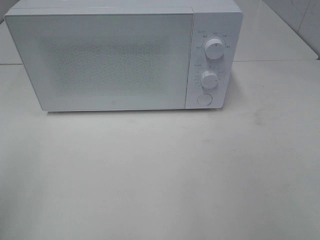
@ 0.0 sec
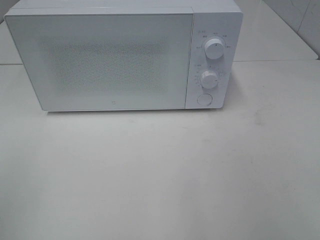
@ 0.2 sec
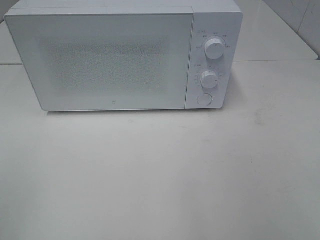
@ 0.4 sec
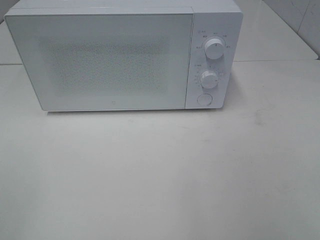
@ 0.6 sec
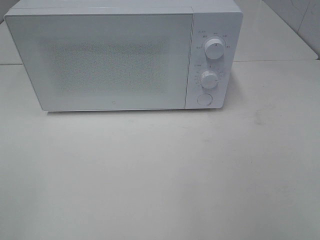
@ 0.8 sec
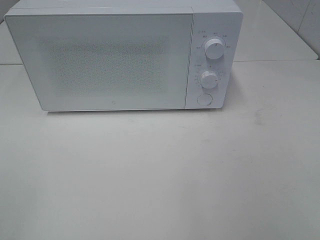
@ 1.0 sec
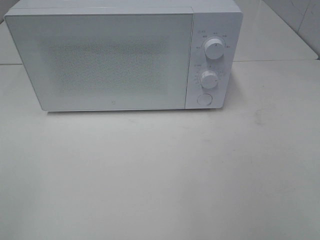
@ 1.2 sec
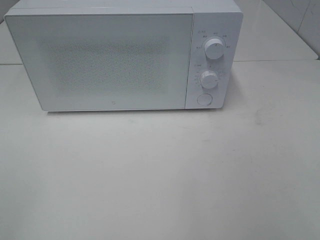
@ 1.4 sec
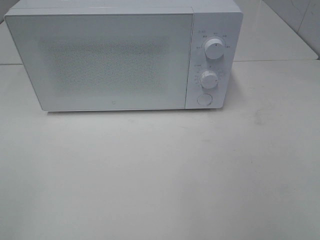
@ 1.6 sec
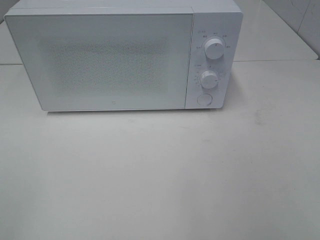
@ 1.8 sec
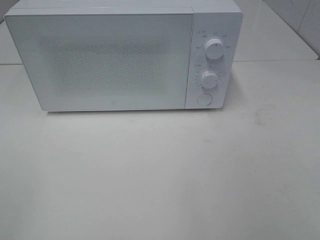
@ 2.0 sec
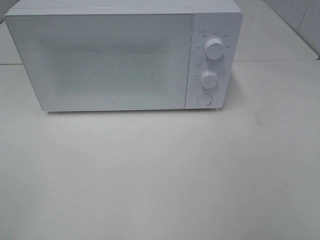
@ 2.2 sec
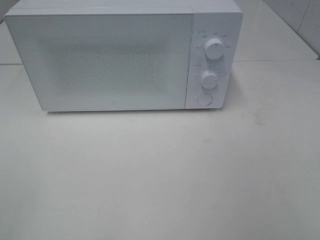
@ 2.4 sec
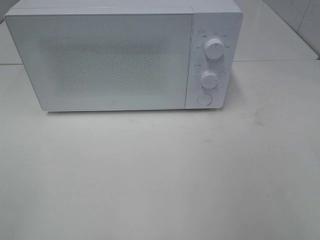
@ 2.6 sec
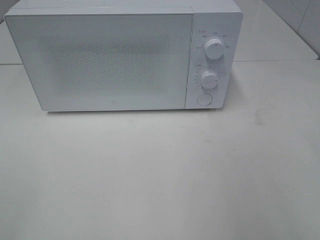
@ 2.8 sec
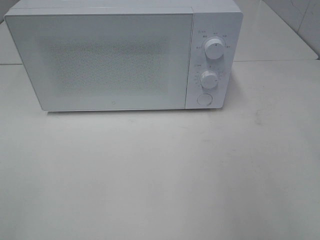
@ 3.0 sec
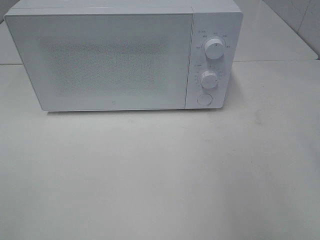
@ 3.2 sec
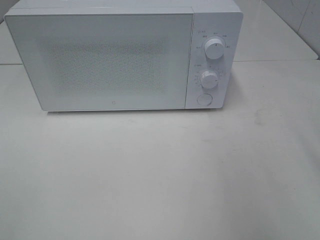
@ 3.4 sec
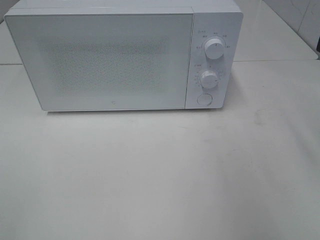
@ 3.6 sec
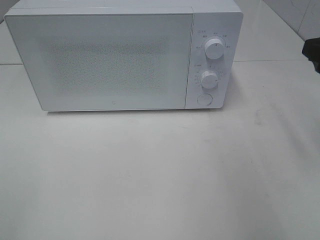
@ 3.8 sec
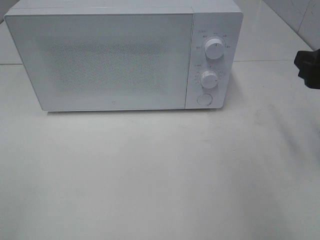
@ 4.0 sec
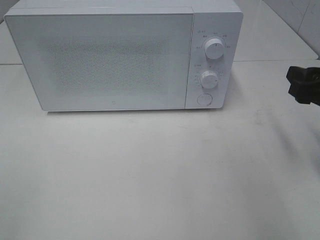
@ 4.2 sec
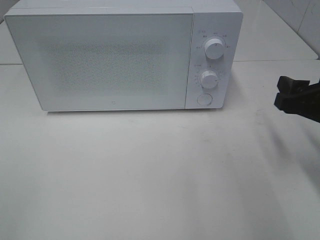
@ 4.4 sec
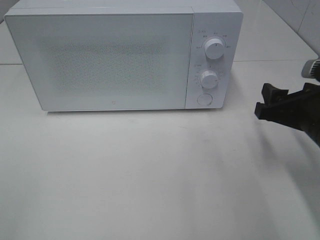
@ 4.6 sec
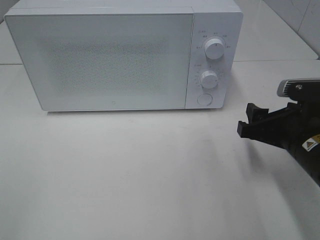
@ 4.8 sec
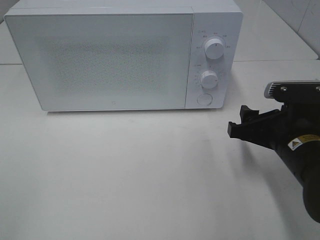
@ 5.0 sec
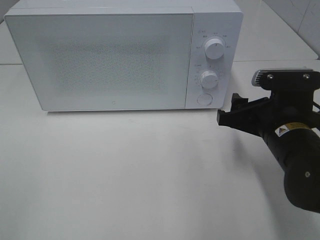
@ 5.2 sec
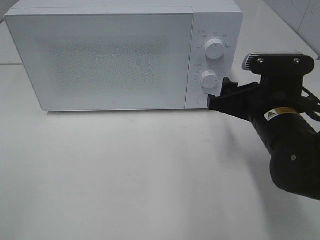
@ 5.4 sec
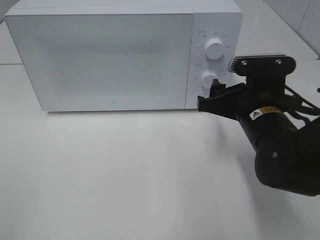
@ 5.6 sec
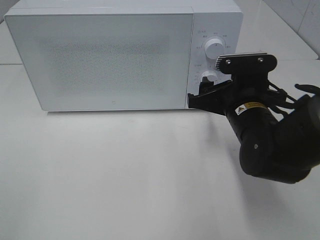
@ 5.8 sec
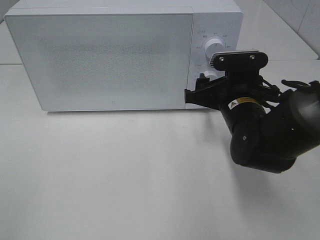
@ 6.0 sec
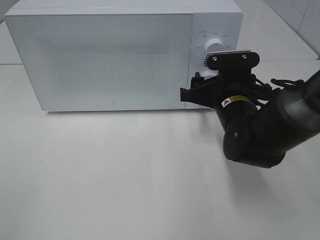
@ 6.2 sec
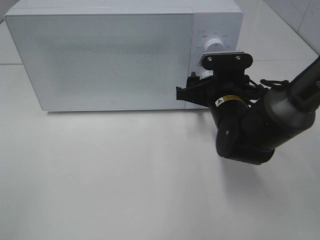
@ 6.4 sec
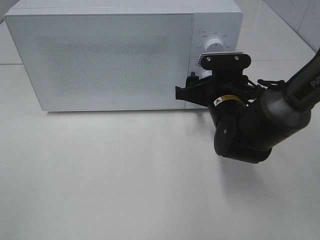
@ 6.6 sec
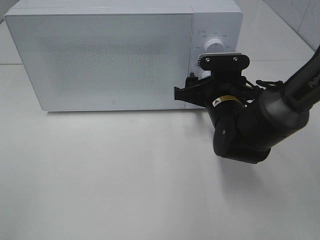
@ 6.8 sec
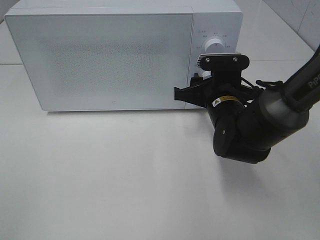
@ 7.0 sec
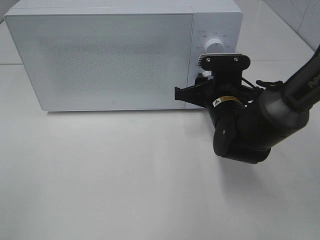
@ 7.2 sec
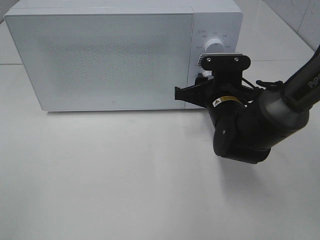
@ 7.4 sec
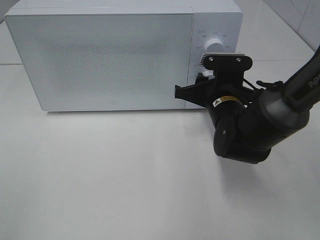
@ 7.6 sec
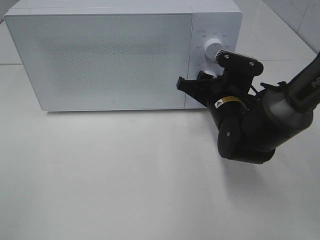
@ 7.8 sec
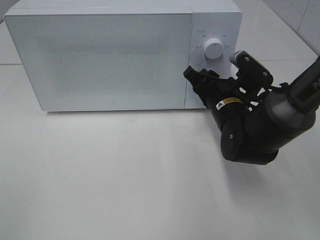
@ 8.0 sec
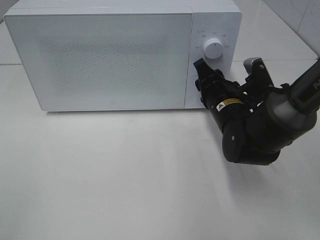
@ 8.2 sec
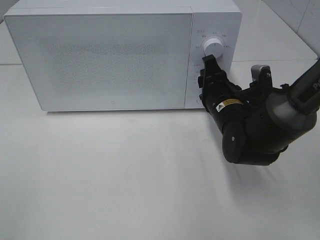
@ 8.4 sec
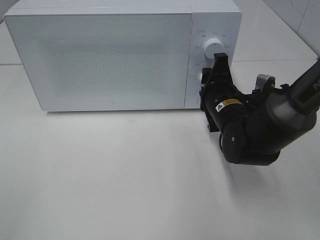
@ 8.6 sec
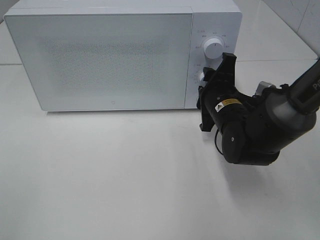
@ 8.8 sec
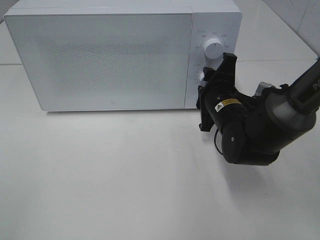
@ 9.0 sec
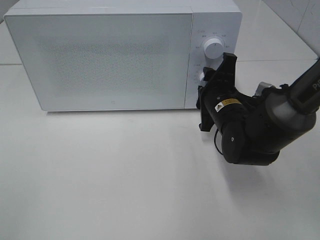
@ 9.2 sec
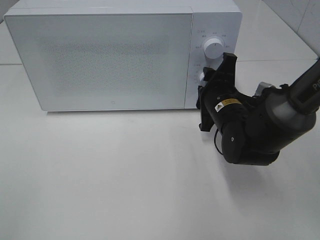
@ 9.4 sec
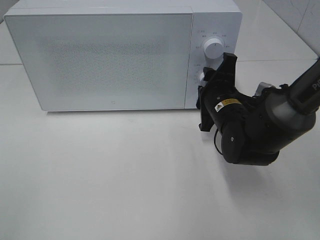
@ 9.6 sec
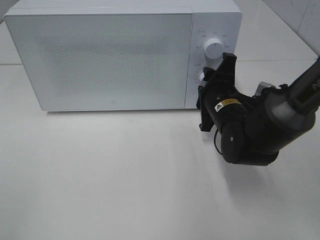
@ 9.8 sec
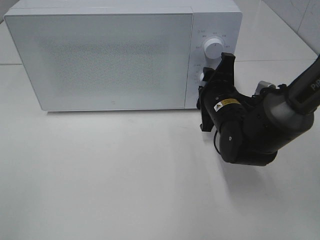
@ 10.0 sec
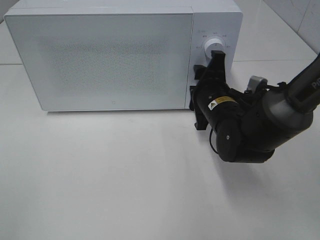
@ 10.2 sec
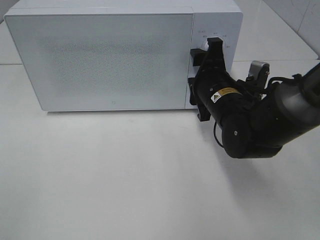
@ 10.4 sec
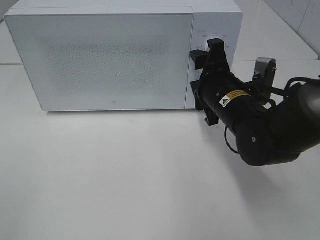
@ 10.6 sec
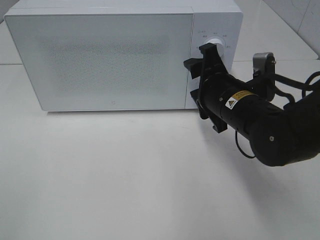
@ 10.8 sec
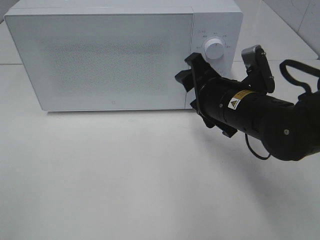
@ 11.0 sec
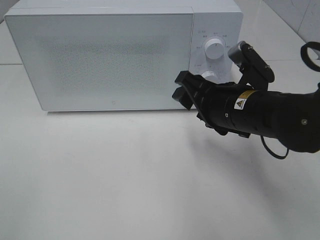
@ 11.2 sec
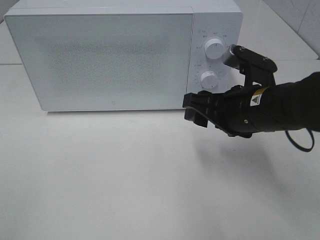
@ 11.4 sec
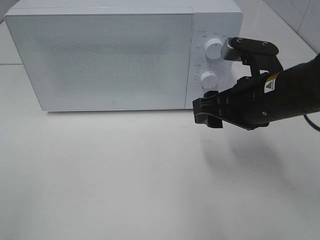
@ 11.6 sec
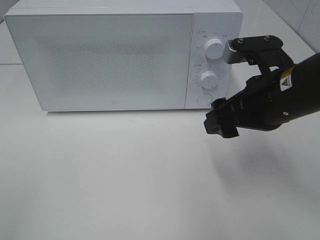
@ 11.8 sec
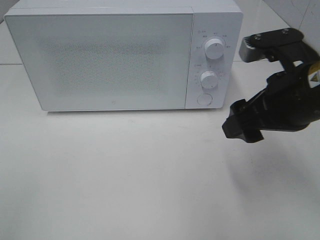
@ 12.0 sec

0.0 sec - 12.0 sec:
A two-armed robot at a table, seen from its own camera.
Task of the whole recording: Heat the burger.
Step, 0.0 sec - 11.0 sec: Right hand: twist timer button.
3.0 sec - 4.4 sec: The right gripper moves downward and forward, approximately 20 cm.
4.4 sec - 6.0 sec: The right gripper shifts some 15 cm to the left and forward.
6.0 sec - 7.6 sec: The right gripper closes its fingers.
9.0 sec - 10.4 sec: The grippers move only a little.
10.4 sec - 12.0 sec: The right gripper heads upward, backward and to the right, covering roughly 15 cm.

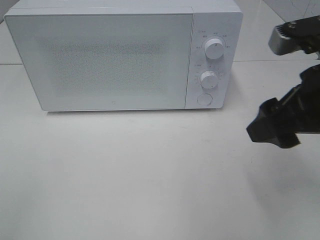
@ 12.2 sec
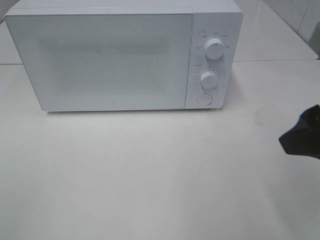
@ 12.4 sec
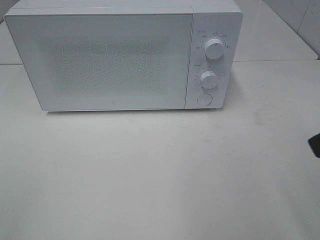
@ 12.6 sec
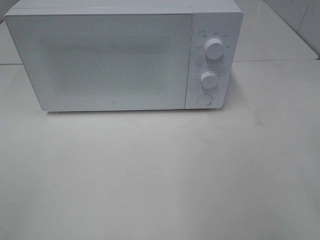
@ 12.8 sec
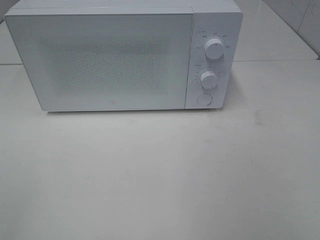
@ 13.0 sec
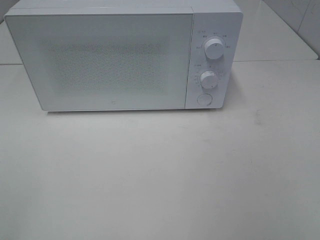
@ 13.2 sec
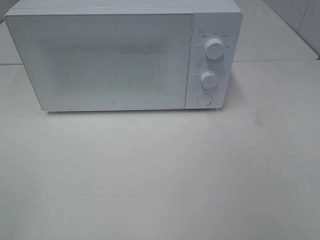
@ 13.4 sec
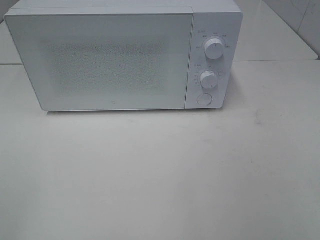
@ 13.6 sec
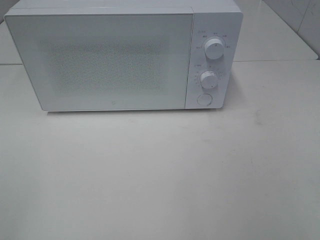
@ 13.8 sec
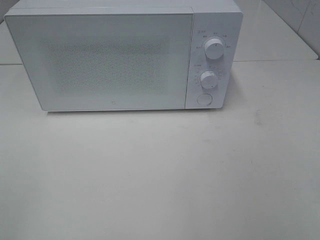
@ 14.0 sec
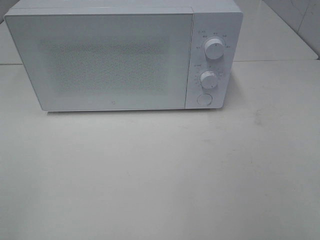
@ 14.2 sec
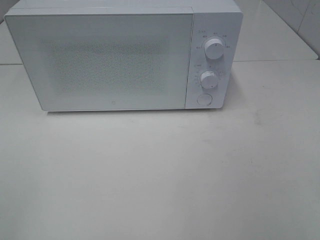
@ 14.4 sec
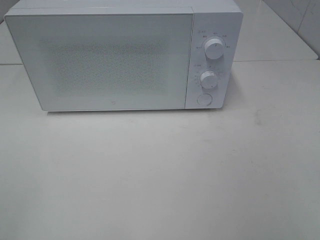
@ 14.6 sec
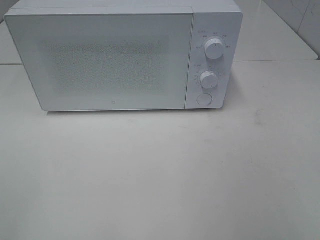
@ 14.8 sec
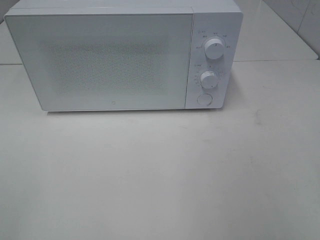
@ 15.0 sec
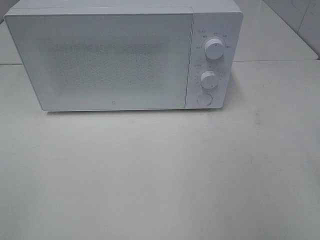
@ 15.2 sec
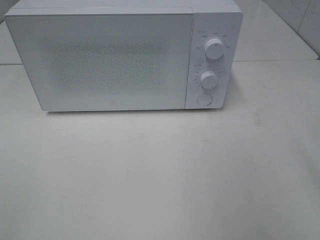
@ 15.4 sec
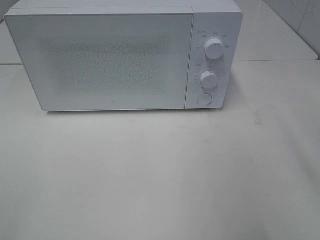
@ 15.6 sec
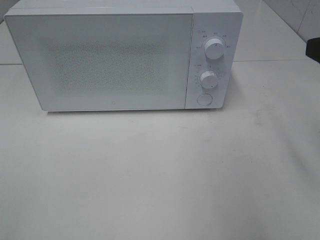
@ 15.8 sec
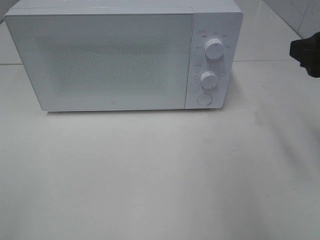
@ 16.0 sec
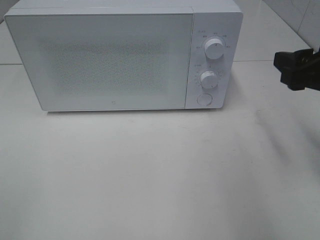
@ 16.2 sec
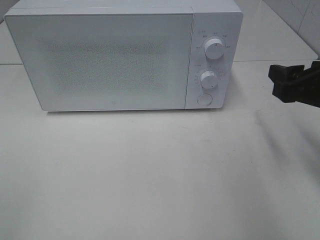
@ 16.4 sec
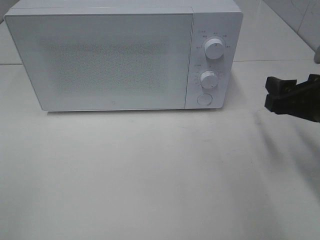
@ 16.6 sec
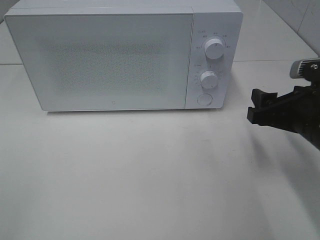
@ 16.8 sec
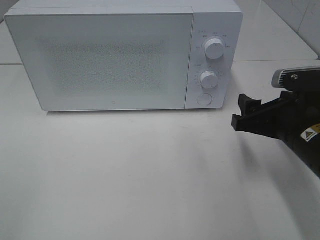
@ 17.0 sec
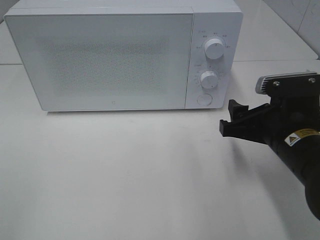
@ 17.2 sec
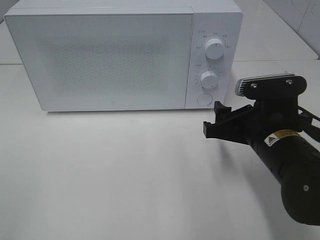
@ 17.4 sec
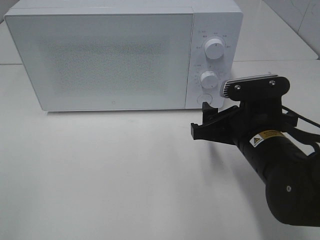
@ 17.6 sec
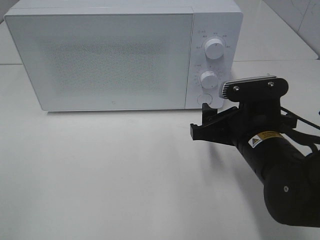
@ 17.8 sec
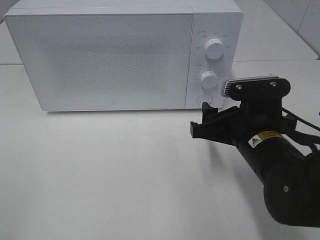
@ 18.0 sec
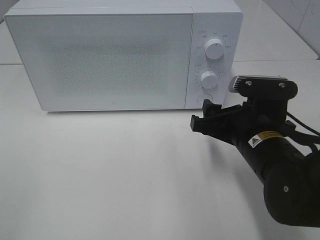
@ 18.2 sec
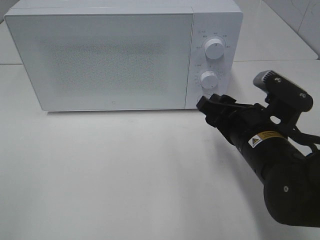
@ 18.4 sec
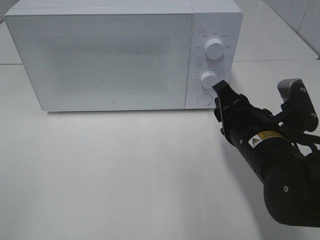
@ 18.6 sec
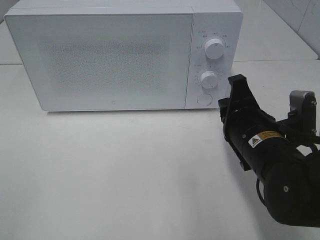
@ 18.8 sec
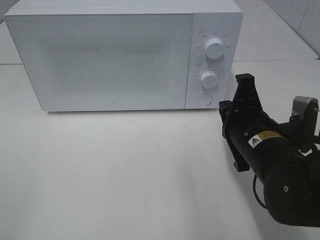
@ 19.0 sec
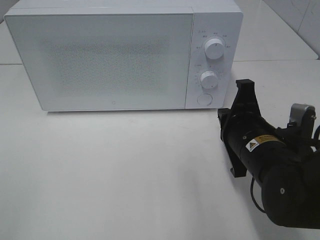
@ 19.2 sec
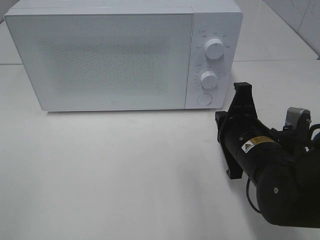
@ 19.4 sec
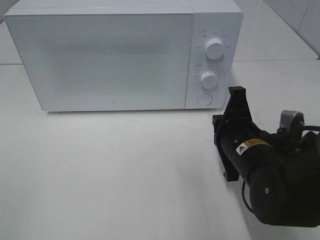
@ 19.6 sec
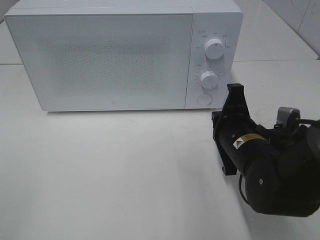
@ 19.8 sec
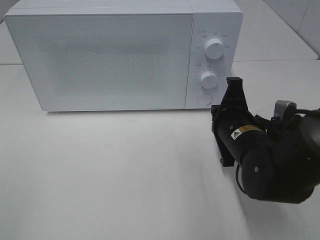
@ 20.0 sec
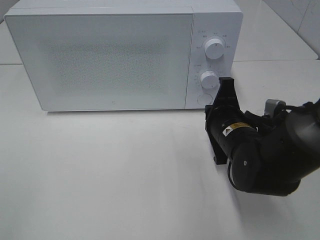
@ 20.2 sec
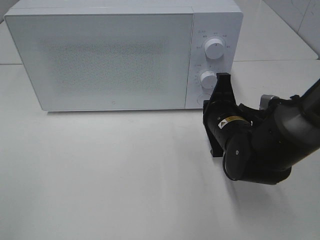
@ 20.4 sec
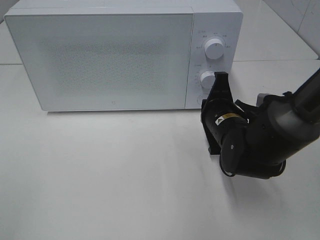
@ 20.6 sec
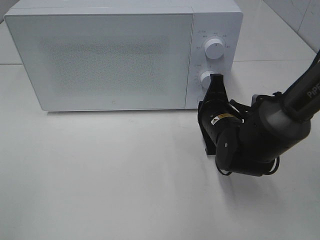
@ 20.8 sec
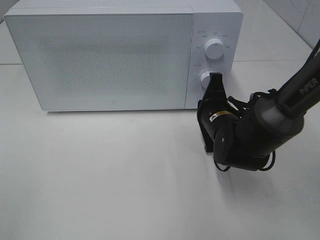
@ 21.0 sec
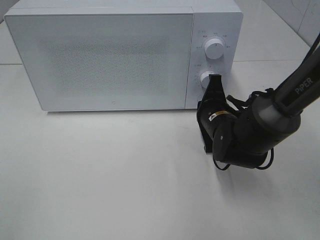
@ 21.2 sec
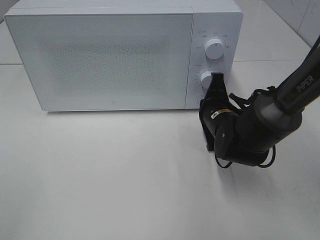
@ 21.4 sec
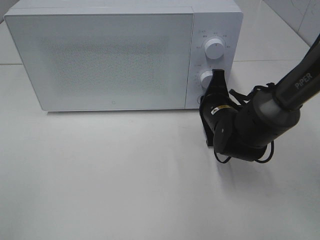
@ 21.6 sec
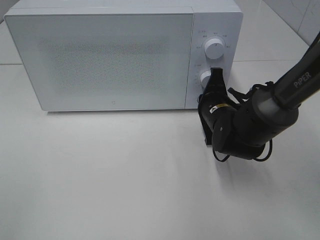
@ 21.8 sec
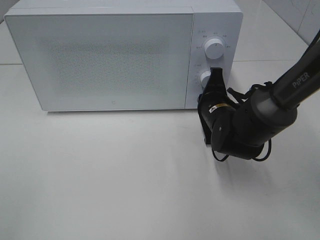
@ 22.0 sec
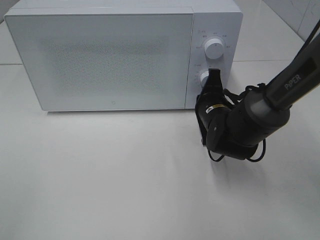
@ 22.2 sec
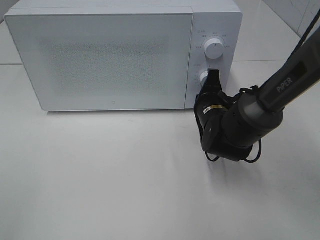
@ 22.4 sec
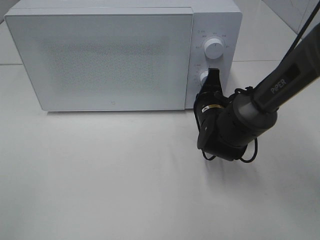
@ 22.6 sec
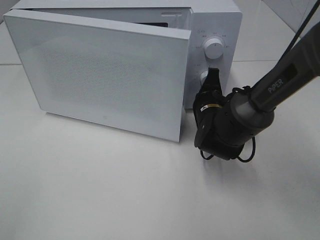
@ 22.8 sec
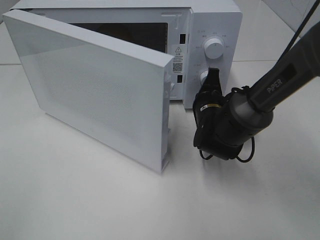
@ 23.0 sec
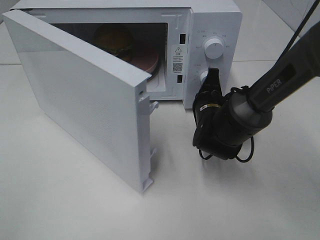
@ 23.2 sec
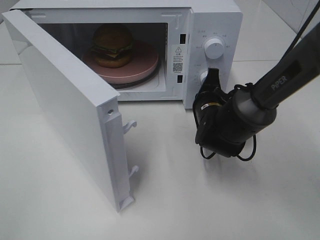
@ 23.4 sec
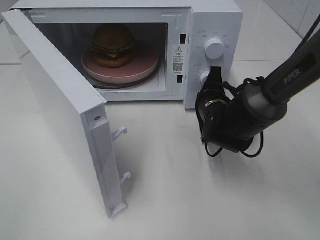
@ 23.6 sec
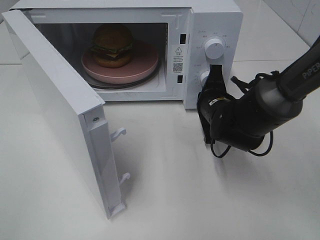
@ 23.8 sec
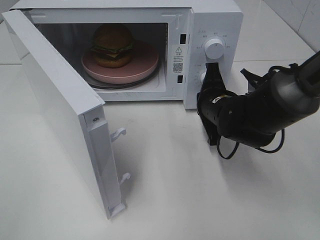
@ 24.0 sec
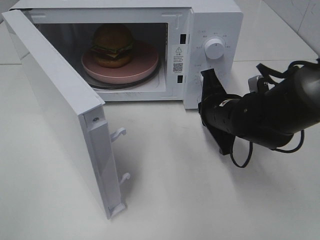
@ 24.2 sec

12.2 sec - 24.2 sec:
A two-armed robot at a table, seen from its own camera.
Task of the whole recording: Heat the burger.
12.2 sec - 13.8 sec: The right gripper travels backward and to the right by about 20 cm.
15.2 sec - 16.6 sec: The right gripper shifts approximately 20 cm downward and forward.
16.6 sec - 18.2 sec: The right gripper shifts about 10 cm to the left.
18.2 sec - 19.8 sec: The right gripper closes its fingers.
19.8 sec - 21.2 sec: The right gripper shifts roughly 10 cm forward.
21.2 sec - 22.6 sec: The grippers move only a little.
22.6 sec - 24.2 sec: The right gripper shifts by about 5 cm.
